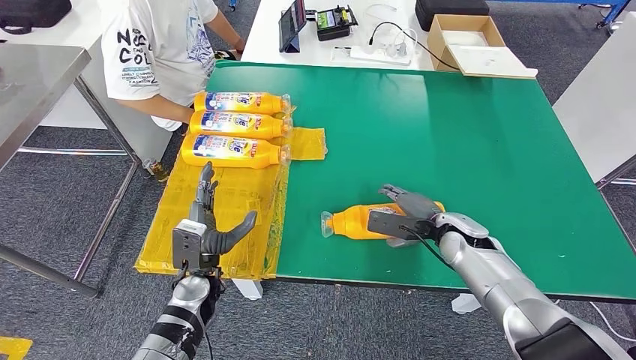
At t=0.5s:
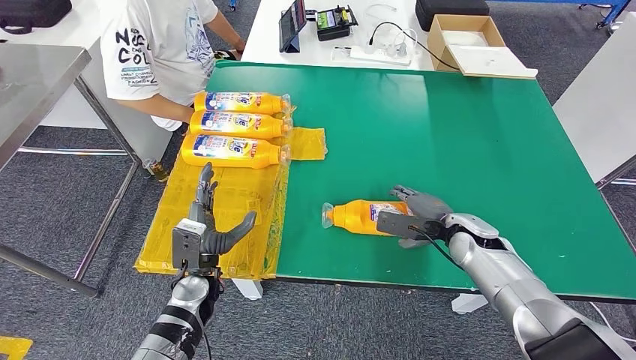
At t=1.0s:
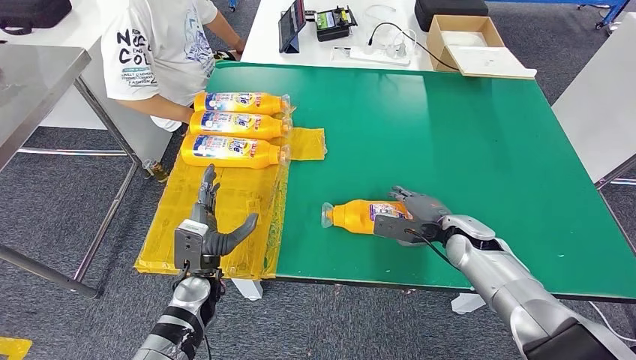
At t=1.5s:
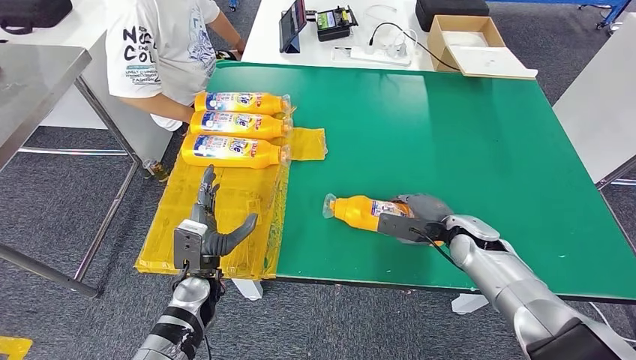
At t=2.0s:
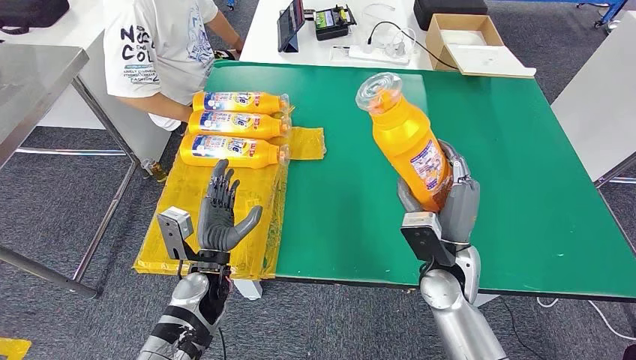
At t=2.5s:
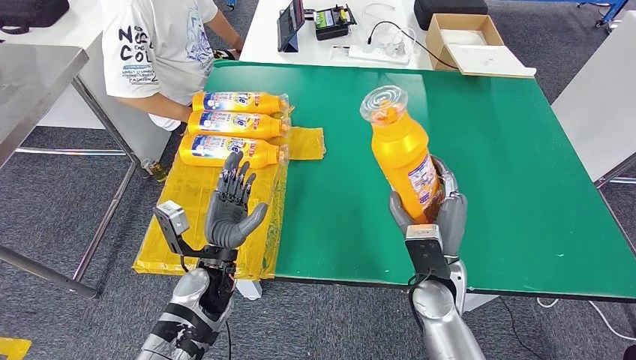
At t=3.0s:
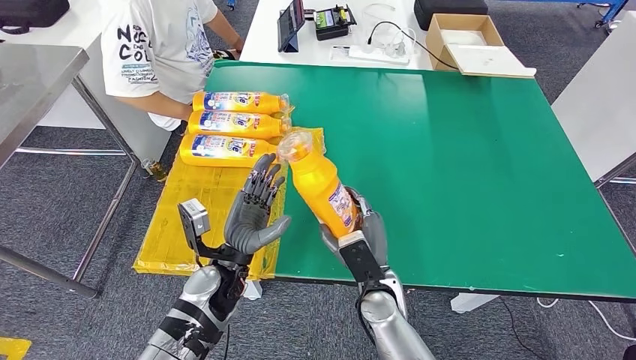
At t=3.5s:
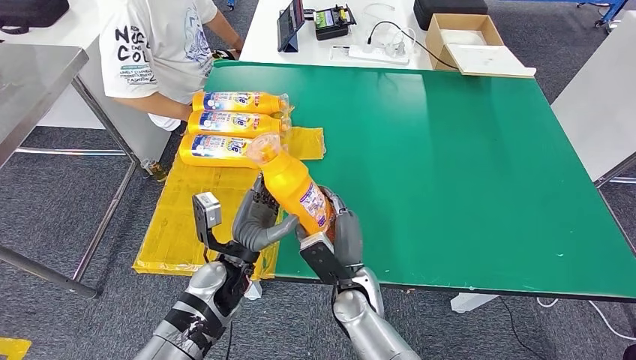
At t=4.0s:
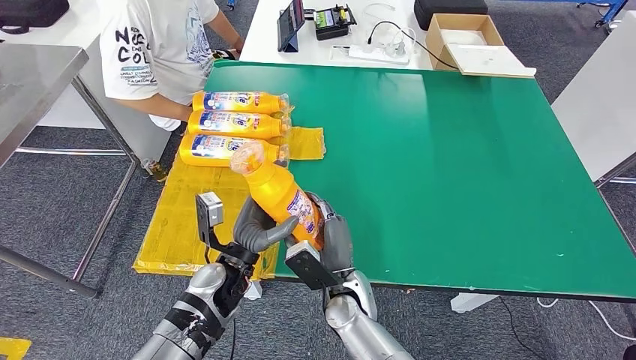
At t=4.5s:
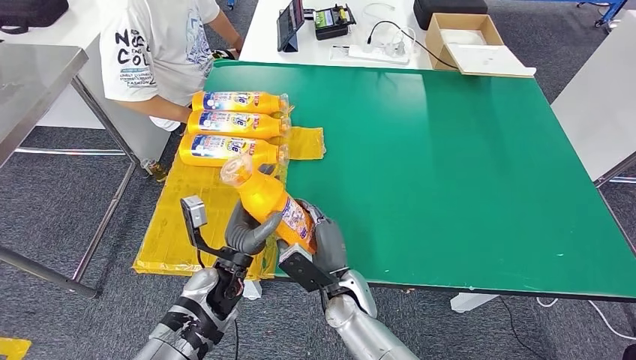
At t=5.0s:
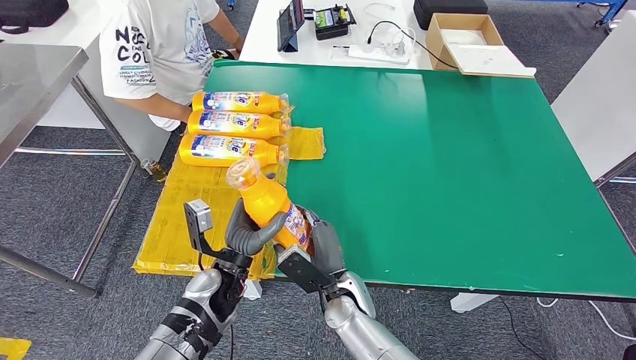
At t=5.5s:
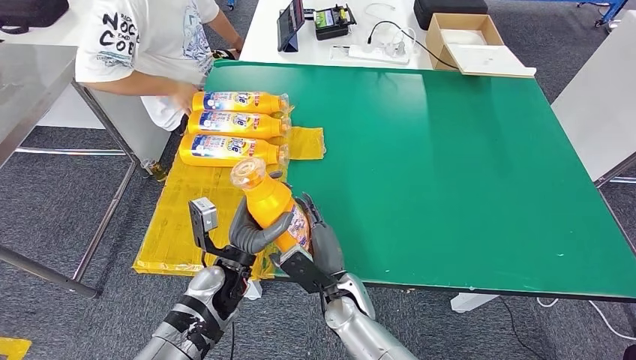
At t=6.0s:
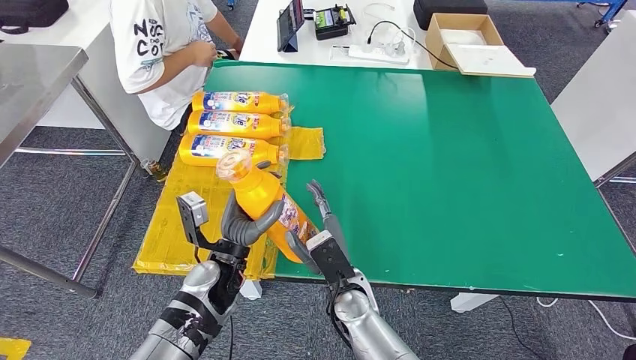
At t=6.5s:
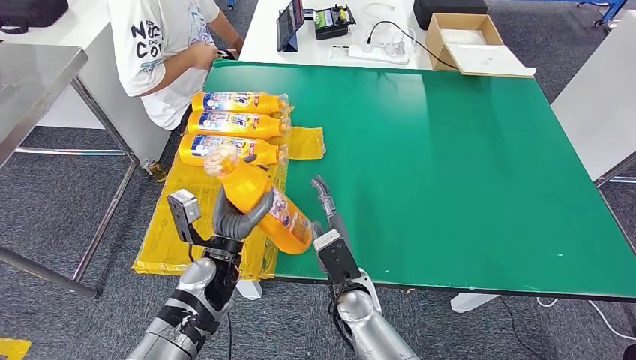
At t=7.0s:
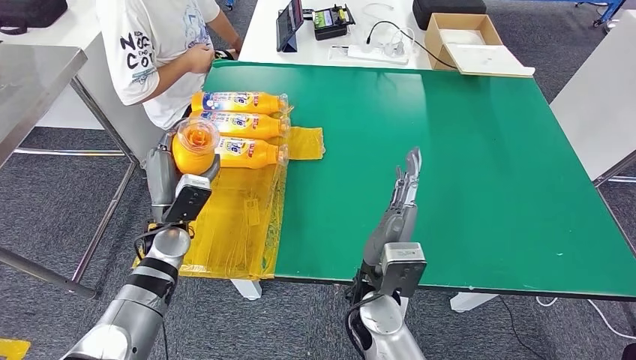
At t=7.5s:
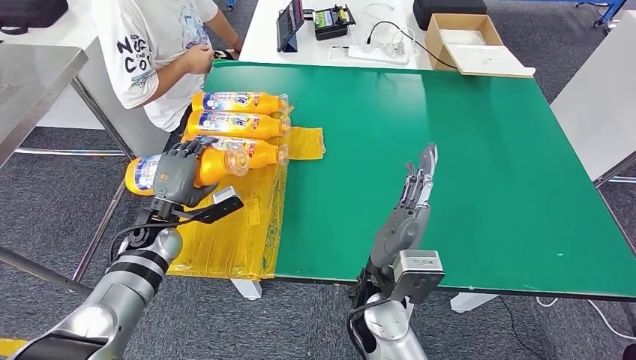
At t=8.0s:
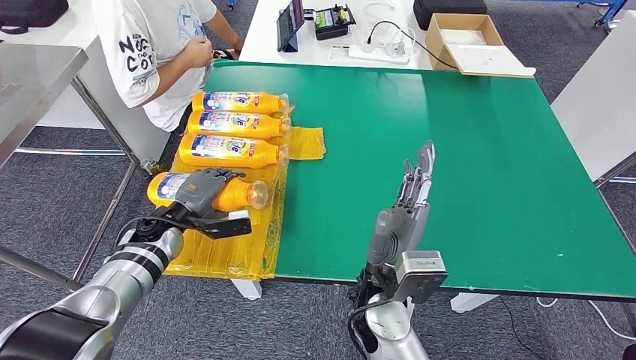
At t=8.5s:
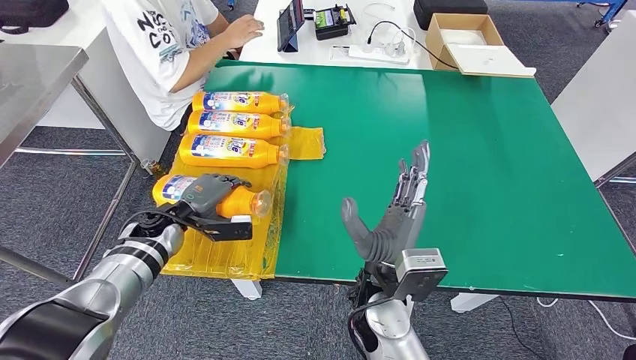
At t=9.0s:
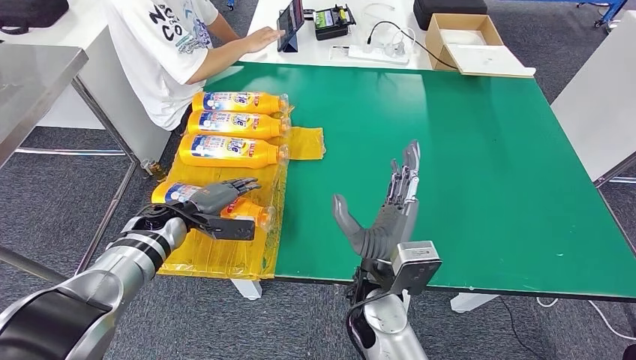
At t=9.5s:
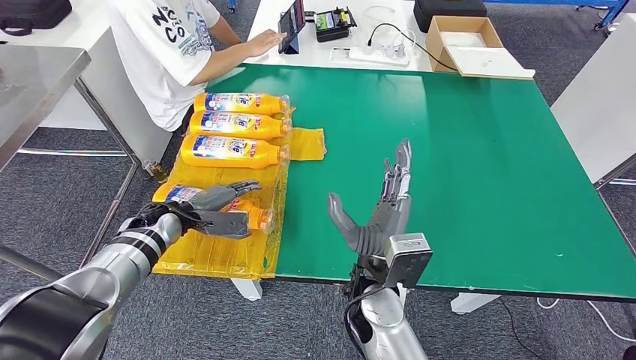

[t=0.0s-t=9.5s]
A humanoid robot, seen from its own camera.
Step, t=0.0s to t=2.0s: Pick up the fast-moving consumer goods bottle from the table.
Step, t=3.0s to t=9.5s: Flip the fast-moving consumer goods bottle to the front side.
t=0.0s to t=2.0s: The right hand heads backward and to the left, covering roughly 10 cm.
t=2.0s to t=4.0s: The right hand shifts about 15 cm to the left and downward.
t=4.0s to t=5.5s: The hands make only small movements.
